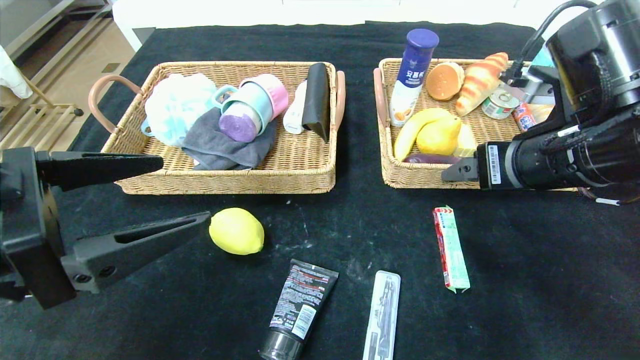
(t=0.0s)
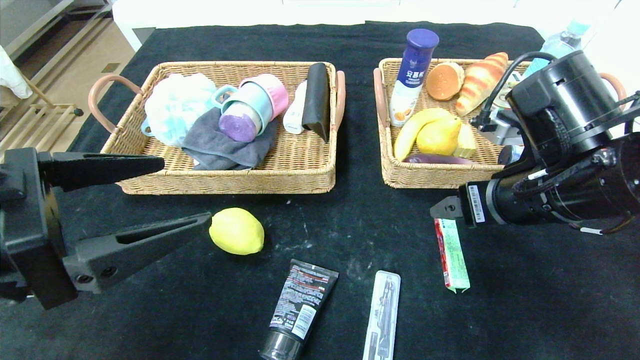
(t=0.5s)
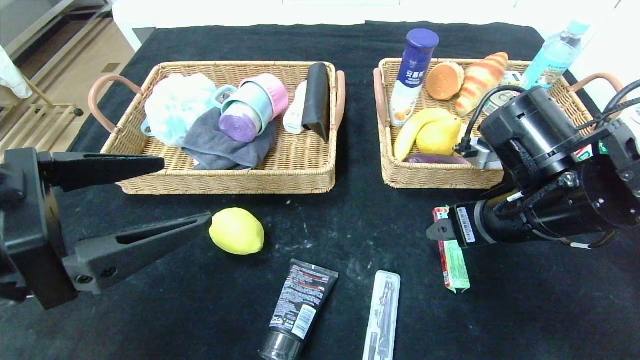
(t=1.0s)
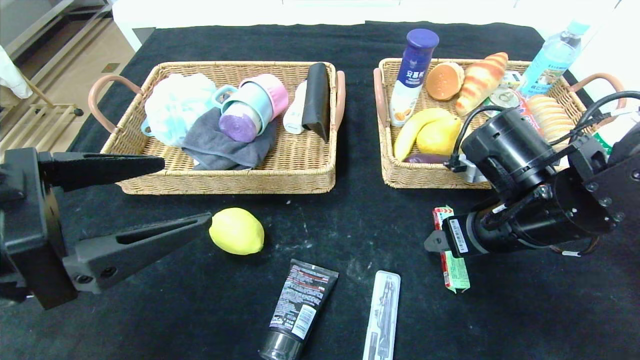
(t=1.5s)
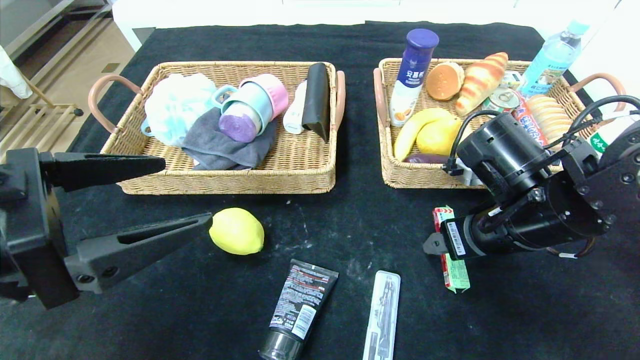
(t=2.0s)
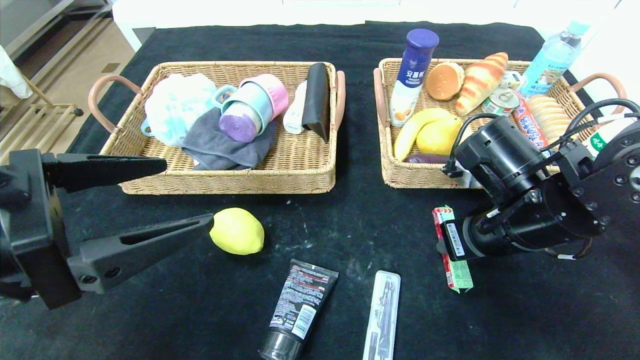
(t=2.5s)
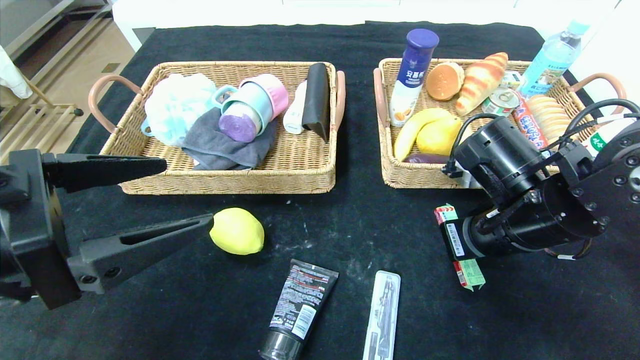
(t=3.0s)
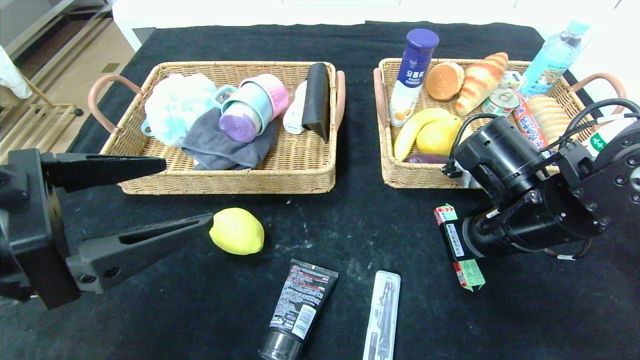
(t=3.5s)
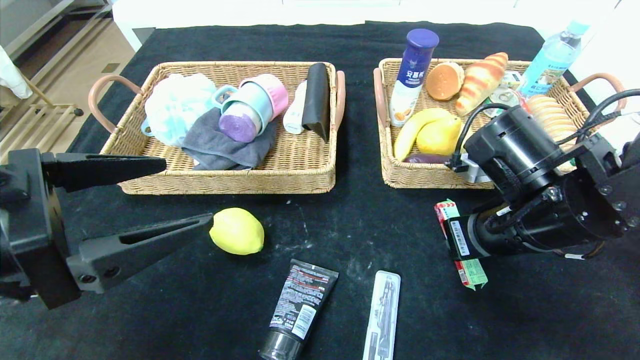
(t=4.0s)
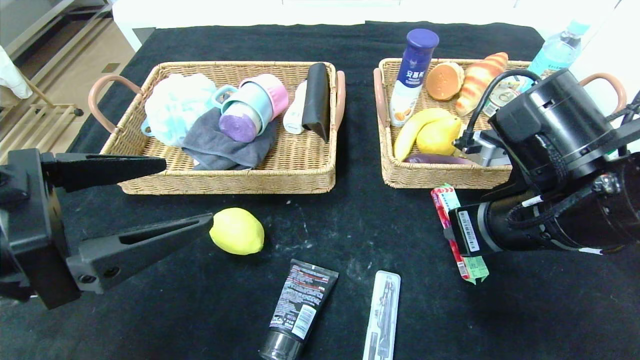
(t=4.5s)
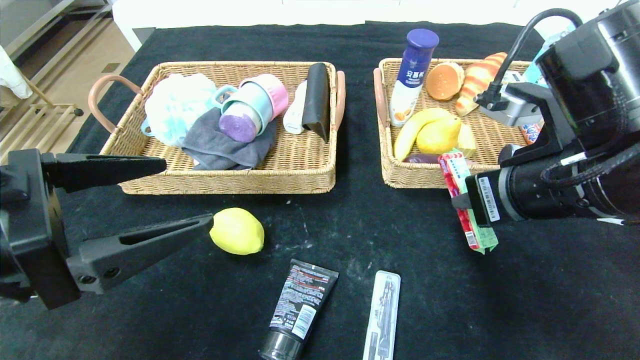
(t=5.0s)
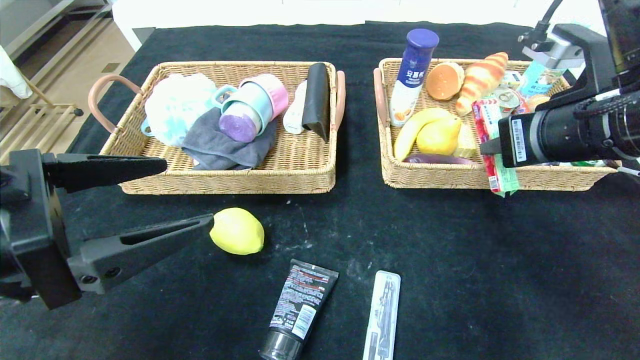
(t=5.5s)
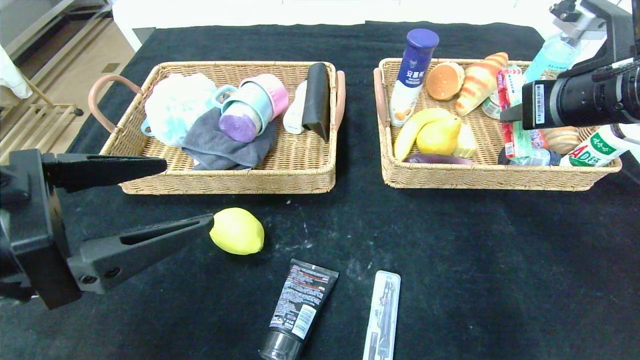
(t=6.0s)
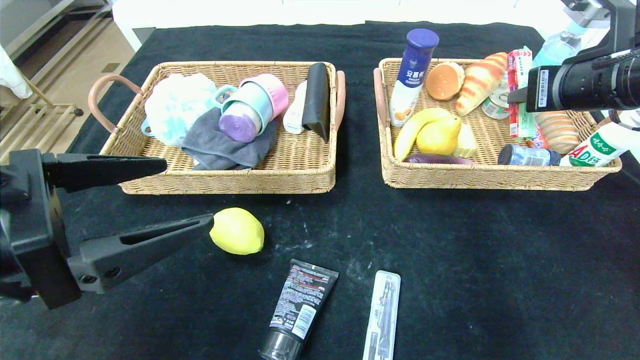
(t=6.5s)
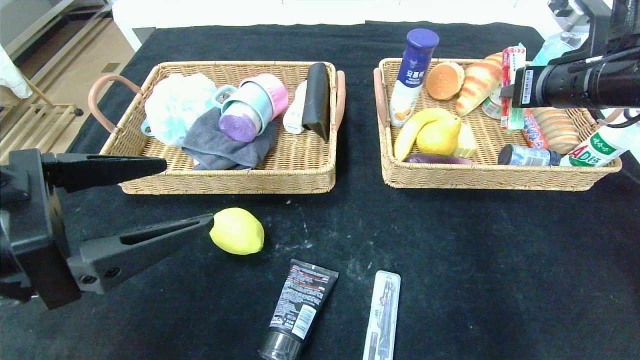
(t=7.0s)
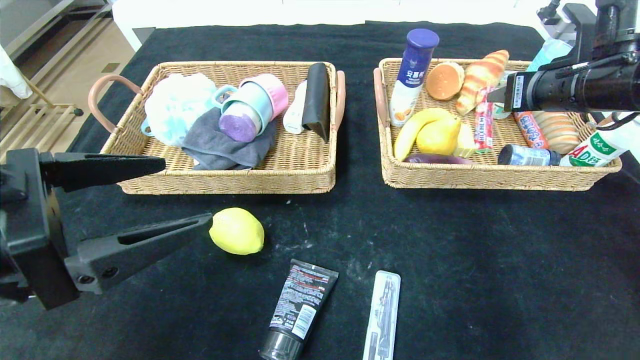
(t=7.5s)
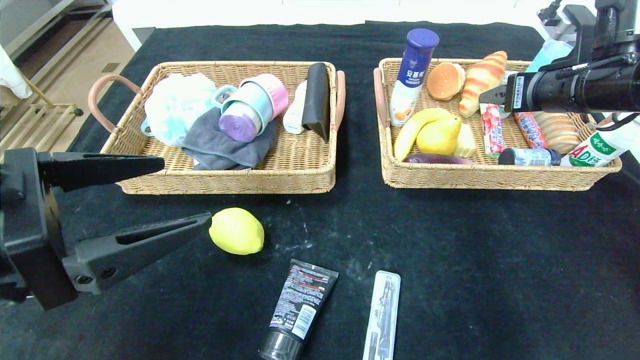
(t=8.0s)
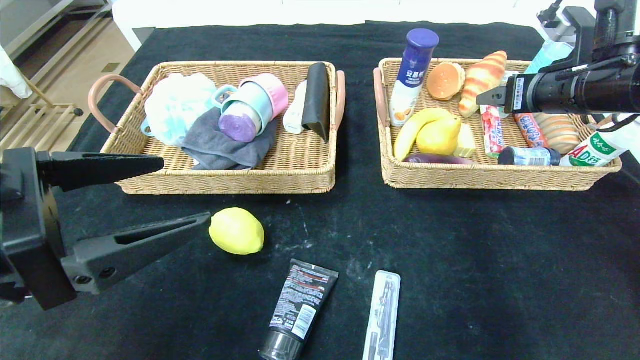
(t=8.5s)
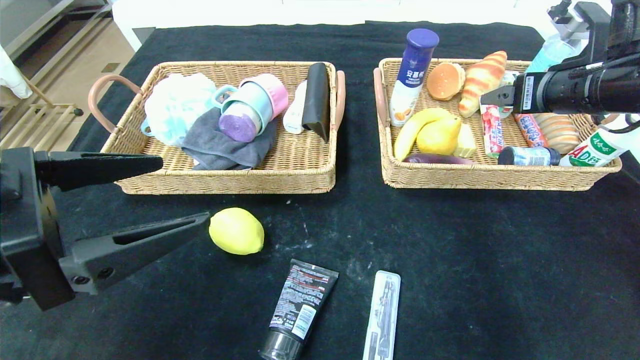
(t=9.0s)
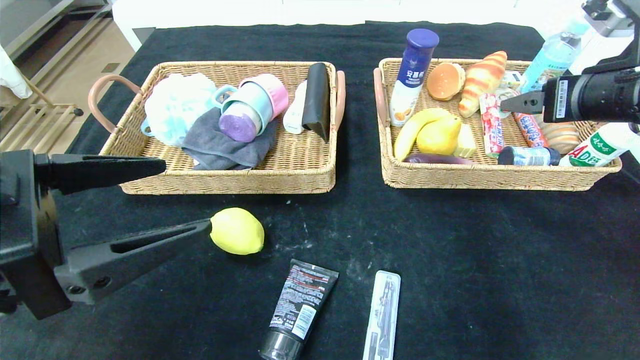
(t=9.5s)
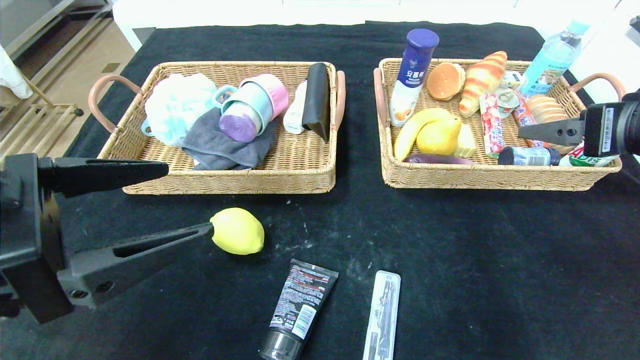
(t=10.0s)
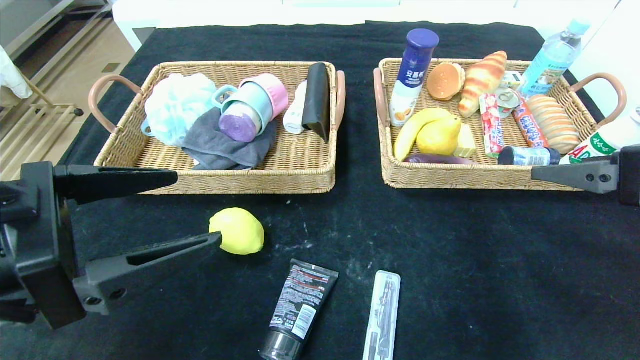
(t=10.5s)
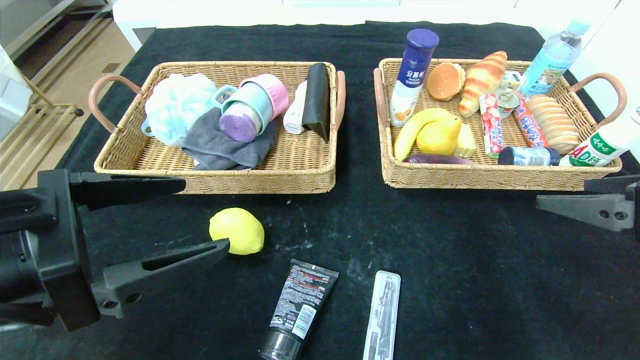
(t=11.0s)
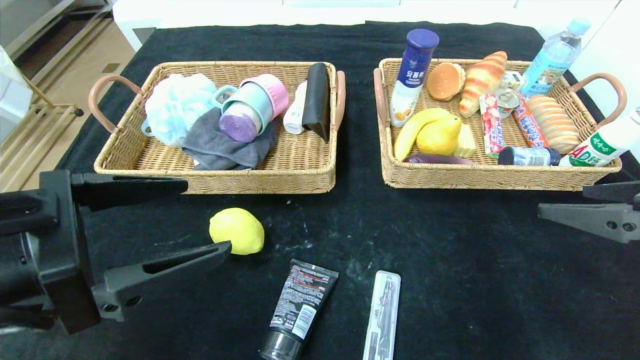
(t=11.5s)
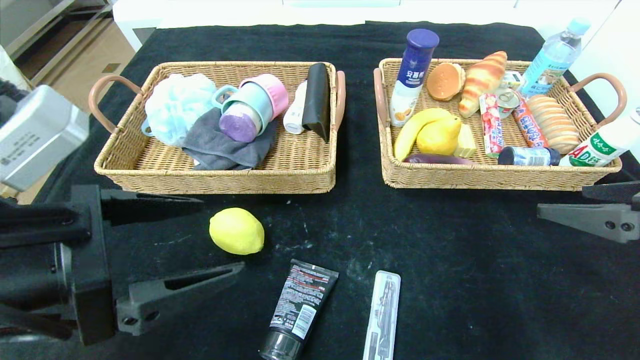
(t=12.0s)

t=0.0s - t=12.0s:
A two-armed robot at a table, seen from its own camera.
Step, t=0.0s - t=7.5s: Grasp the fruit fudge and put it in the right basket.
t=0.0s - t=2.0s: The right gripper shifts about 10 cm downward.
t=2.0s - t=4.0s: The right gripper closes up.
t=4.0s - t=6.0s: The right gripper travels upward and to the right by some 15 cm.
t=6.0s - t=8.0s: The right gripper shifts approximately 5 cm forward, and opens.
t=8.0s - t=10.0s: The right gripper shifts approximately 10 cm backward.
t=10.0s - t=12.0s: The right gripper shifts about 5 cm backward.

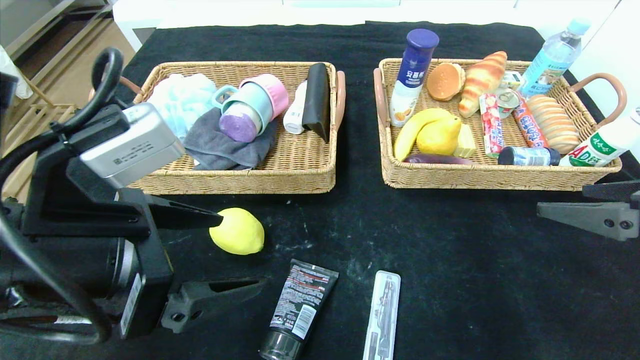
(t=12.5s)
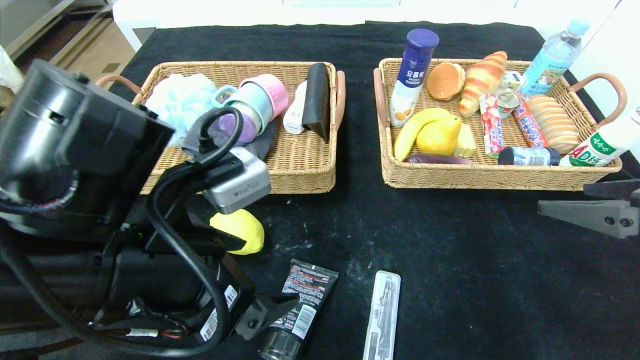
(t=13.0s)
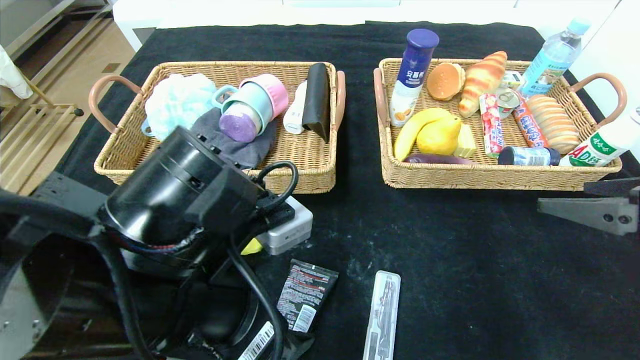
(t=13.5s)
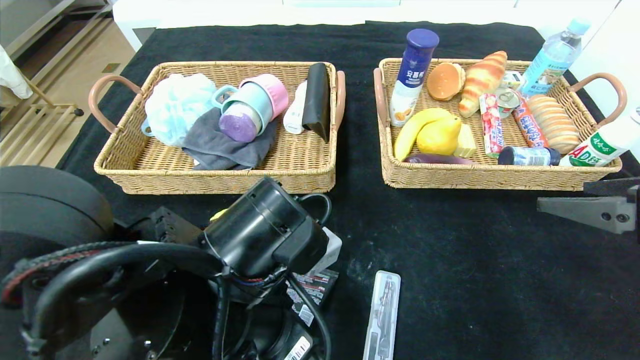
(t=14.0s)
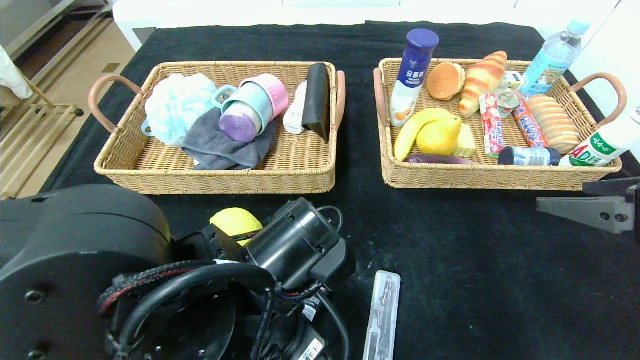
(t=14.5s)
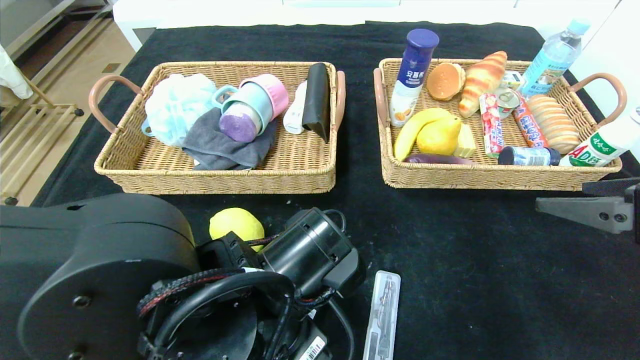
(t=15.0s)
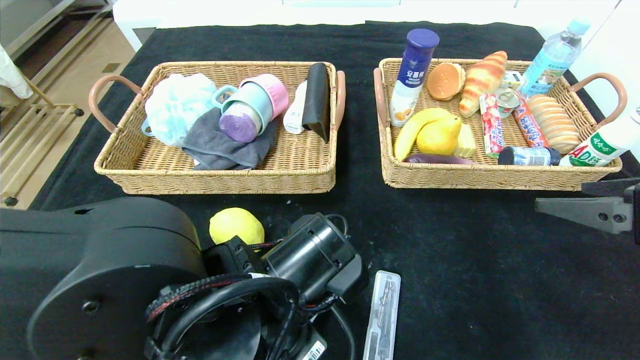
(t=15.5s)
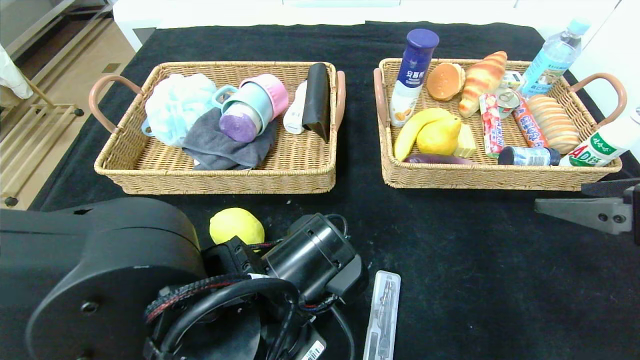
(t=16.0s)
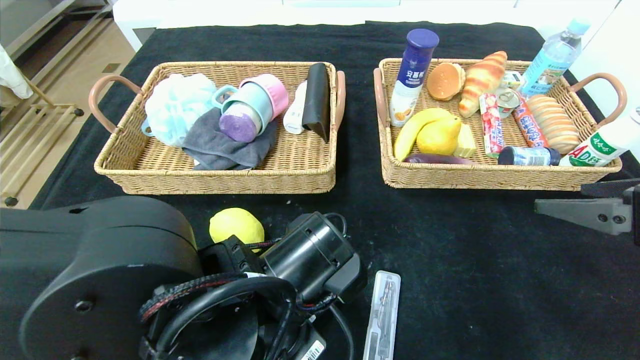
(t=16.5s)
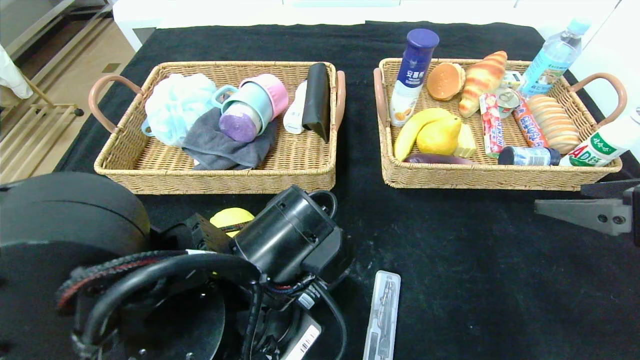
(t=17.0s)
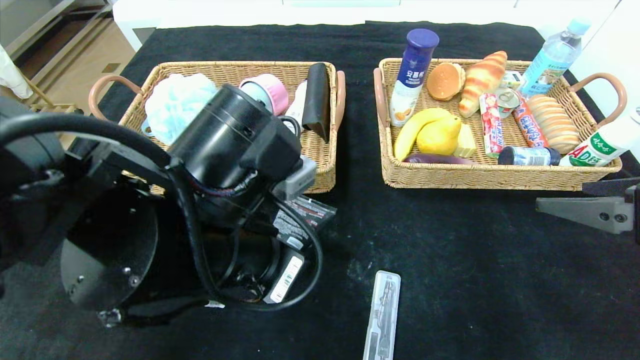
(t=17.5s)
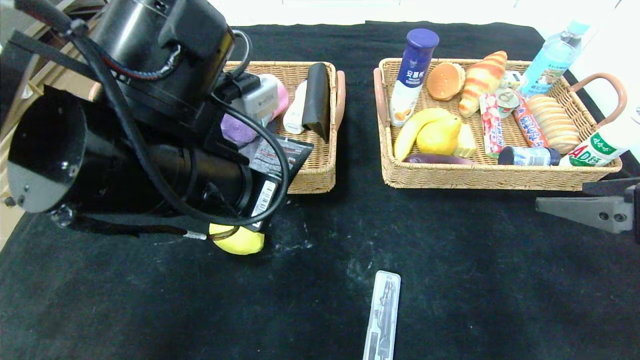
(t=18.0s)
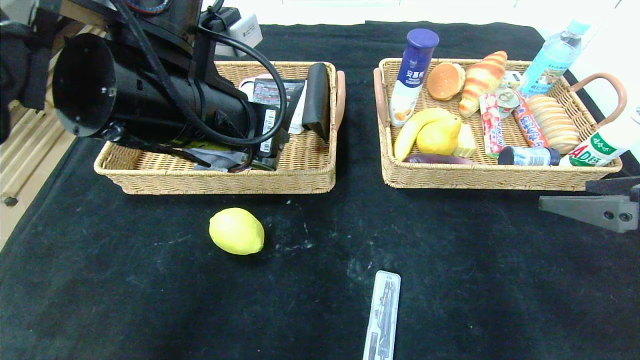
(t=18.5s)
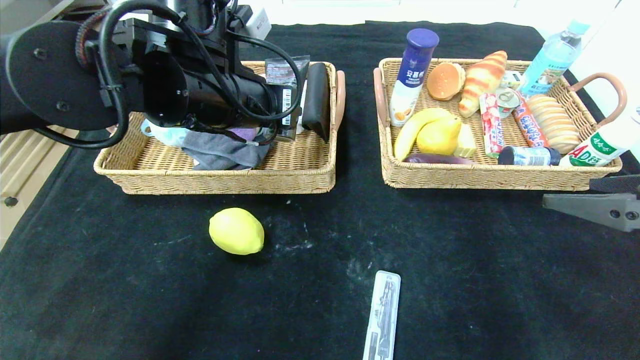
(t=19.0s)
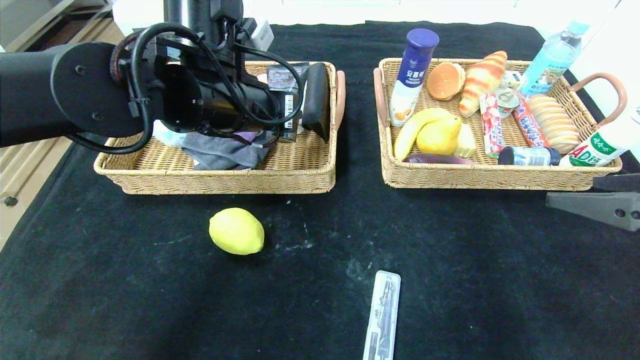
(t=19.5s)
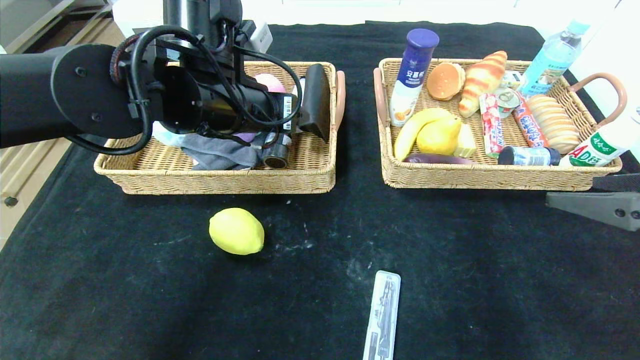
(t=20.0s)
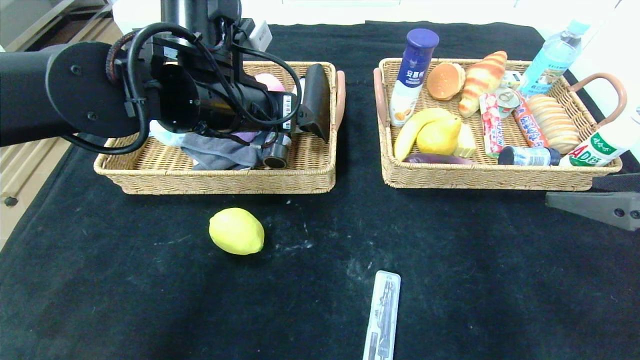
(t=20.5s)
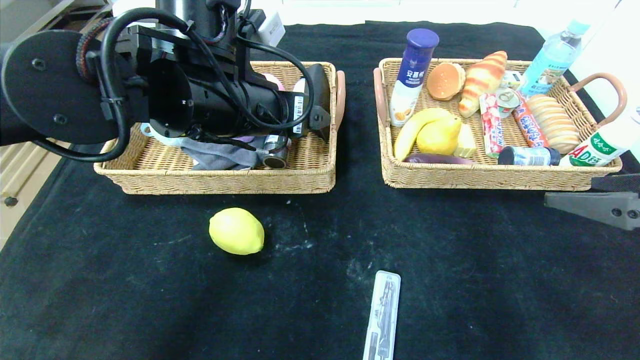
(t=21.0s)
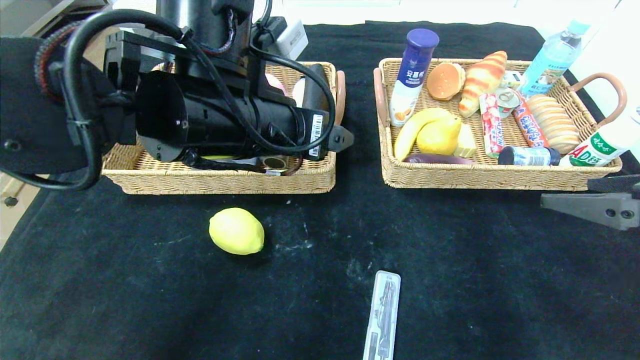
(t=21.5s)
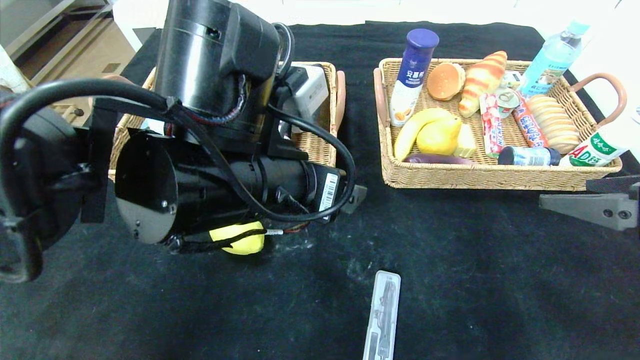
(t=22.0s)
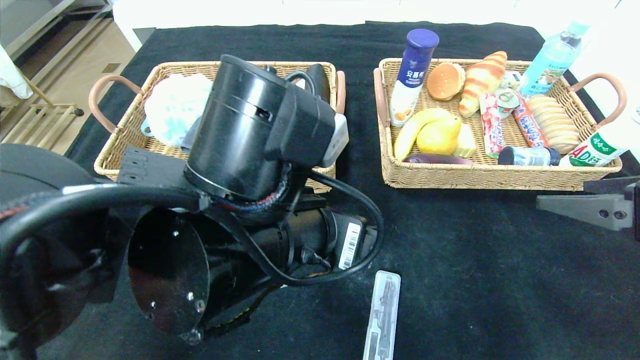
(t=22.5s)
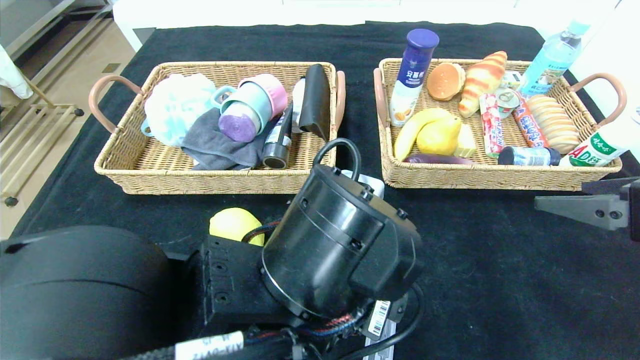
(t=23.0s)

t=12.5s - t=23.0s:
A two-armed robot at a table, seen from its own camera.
Step, t=12.5s - t=20.0s: Grasp the soft cleanser and put it in the left basket.
t=12.5s - t=14.5s: The left gripper shifts roughly 15 cm to the right and downward.
t=14.5s - t=16.5s: The left gripper closes up.
t=16.5s - t=19.0s: The left gripper heads forward and upward, covering roughly 20 cm.
t=19.0s - t=21.0s: The left gripper opens its fingers.
t=21.0s - t=23.0s: The left gripper heads backward, downward and to the right, covering roughly 20 cm.
